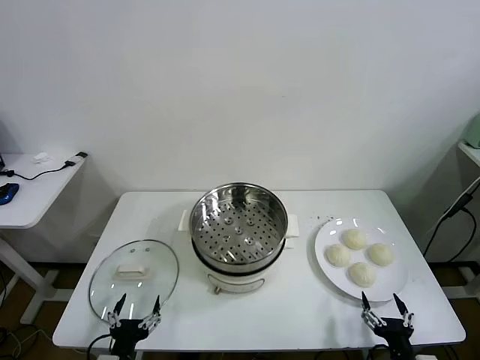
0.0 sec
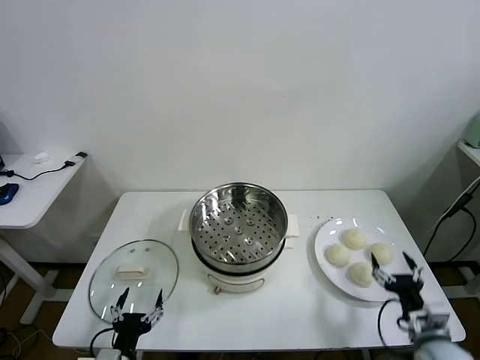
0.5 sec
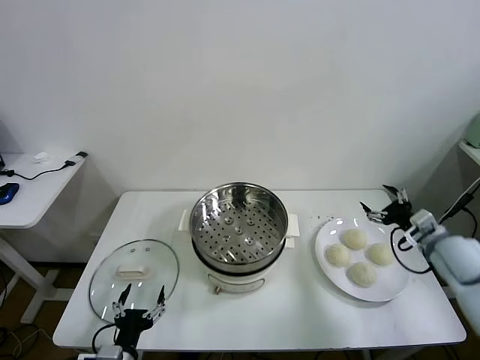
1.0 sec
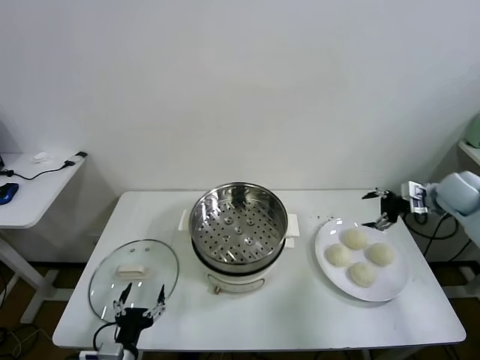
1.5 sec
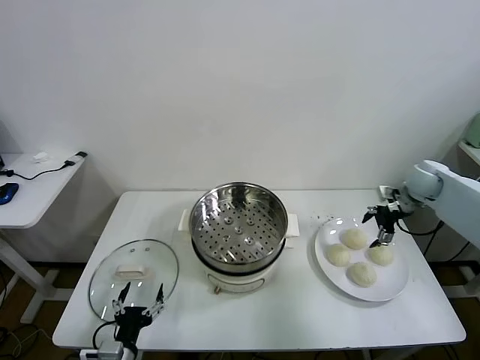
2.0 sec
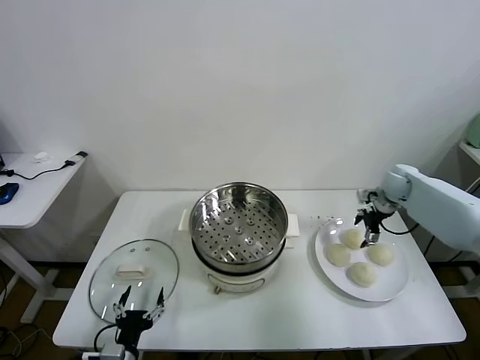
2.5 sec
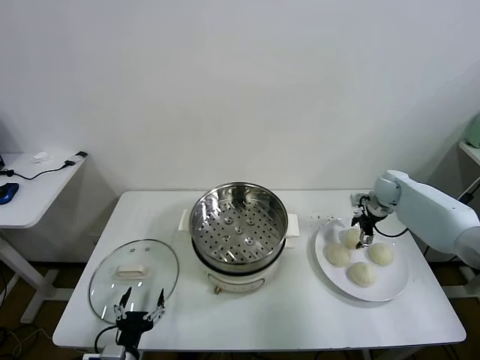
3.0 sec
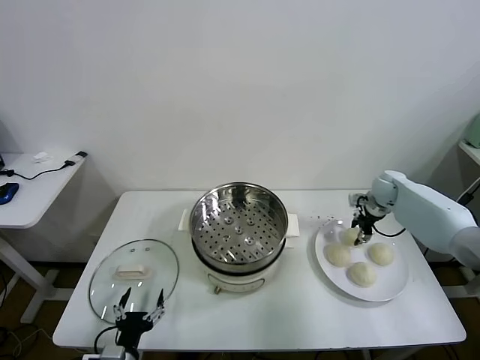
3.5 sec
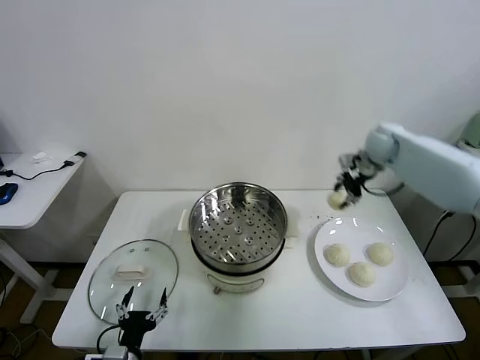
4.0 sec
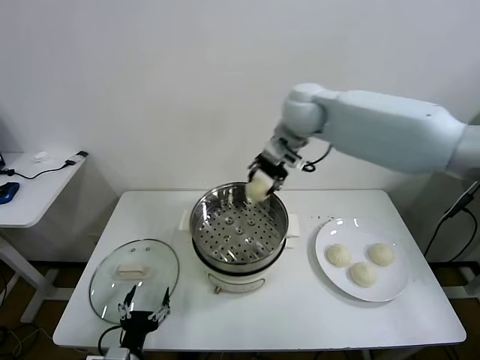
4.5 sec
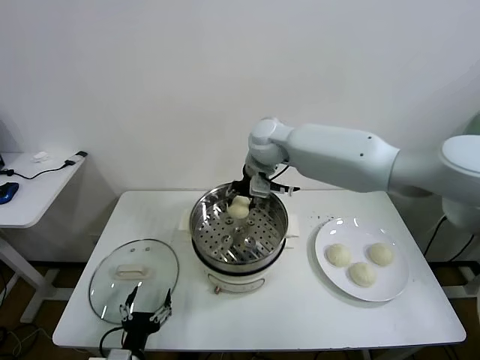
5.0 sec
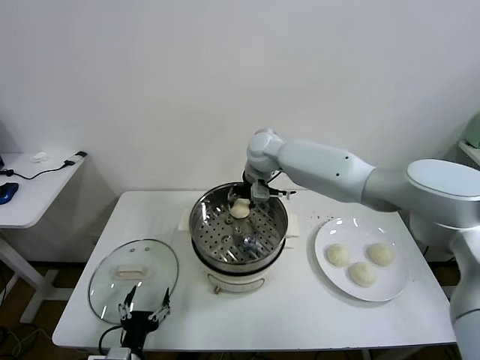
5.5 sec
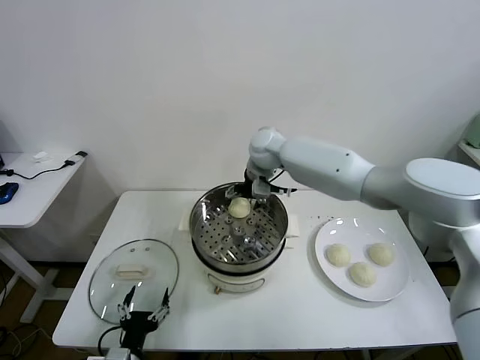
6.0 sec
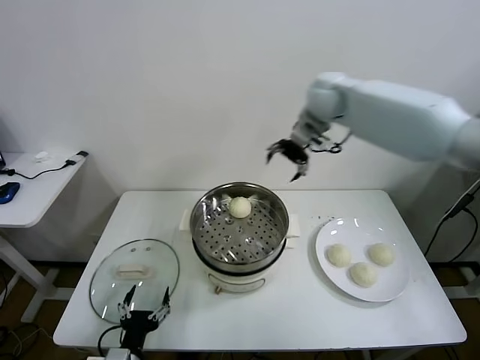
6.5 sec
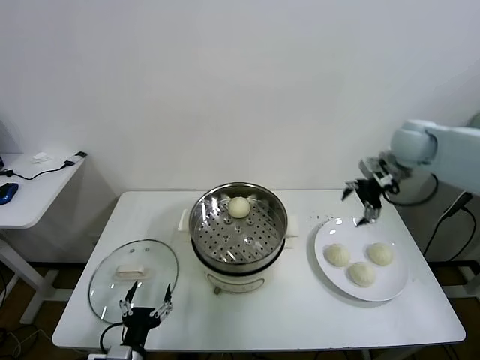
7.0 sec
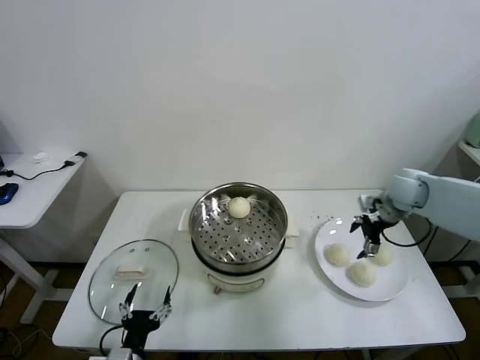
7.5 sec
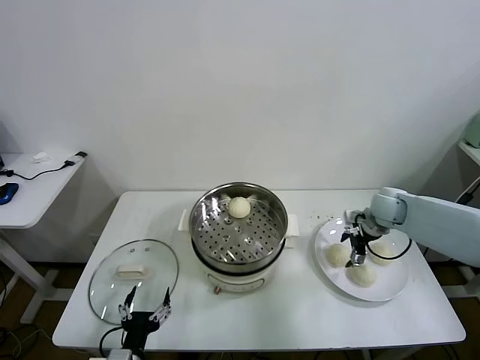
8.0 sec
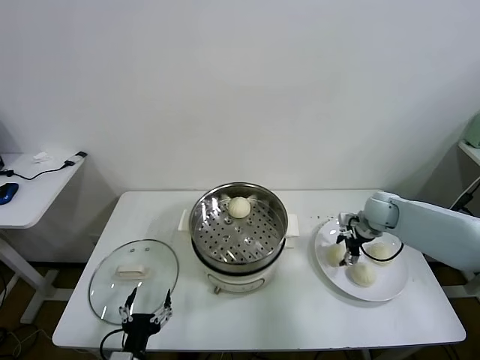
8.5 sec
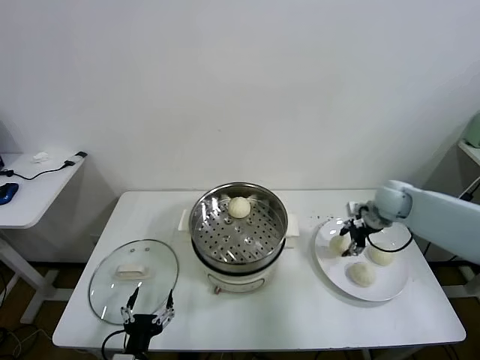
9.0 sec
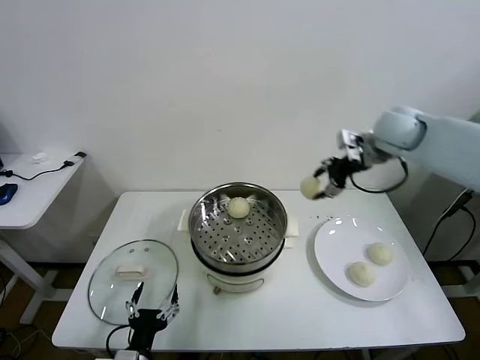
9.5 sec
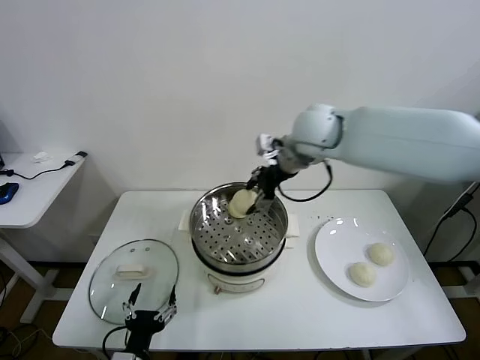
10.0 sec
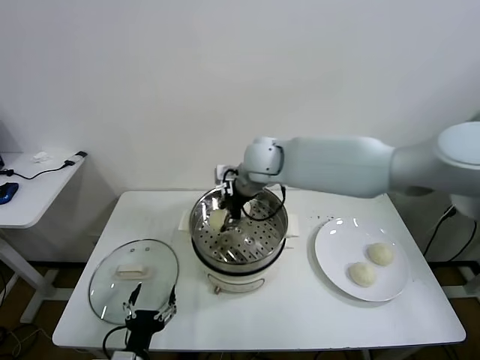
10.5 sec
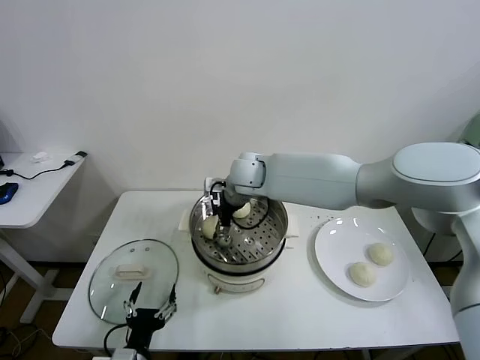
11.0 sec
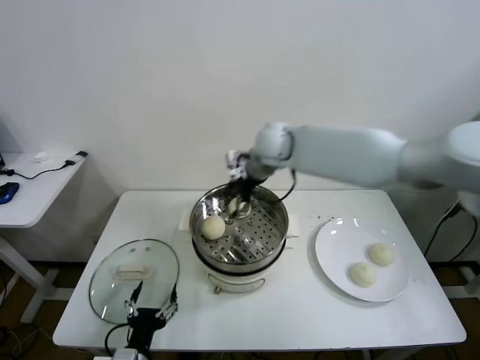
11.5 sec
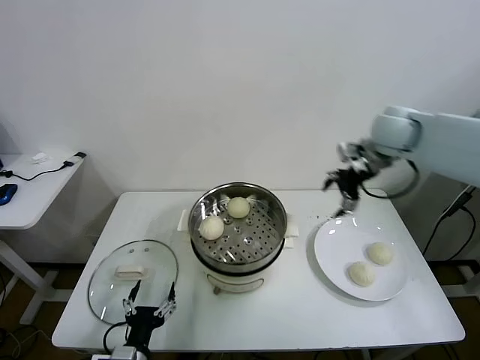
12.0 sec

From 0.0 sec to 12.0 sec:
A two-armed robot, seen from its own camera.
Task of the whole recording: take steamed baozi put them in steamer.
Step, from 0.0 sec to 3.0 sec: Grasp the baozi in the plate with right gripper.
Step, from 3.5 sec to 6.0 sec: Place the baozi on the steamer with right gripper.
Step, from 6.5 sec to 8.5 sec: Grasp the baozi in the plate with right gripper.
Step, from 9.0 sec to 11.0 sec: Place the baozi on the steamer with right gripper.
From 2.0 sec to 4.0 sec: The right gripper goes about 20 cm to the left and upward, and closes up.
From 4.0 sec to 6.0 sec: The right gripper moves to the left, approximately 25 cm, and opens up.
From 6.0 sec to 8.0 sec: The right gripper travels to the right and downward by approximately 35 cm.
From 8.0 sec to 10.0 sec: The right gripper shifts roughly 35 cm to the left and upward, and closes.
From 10.0 sec to 12.0 sec: The right gripper heads to the right, covering approximately 20 cm, and opens its fingers.

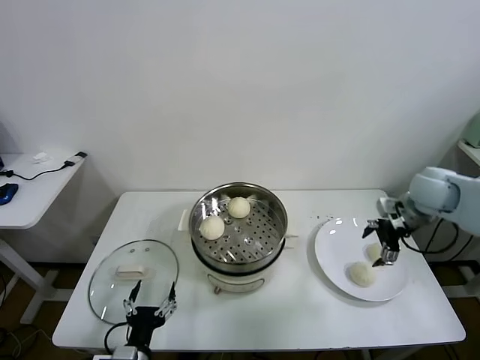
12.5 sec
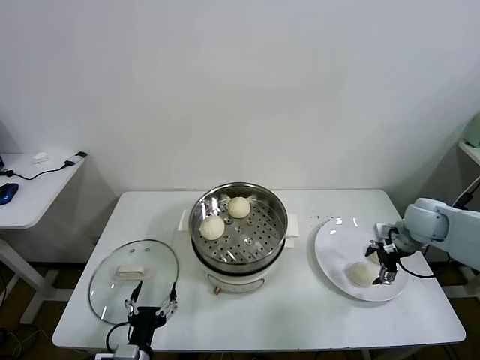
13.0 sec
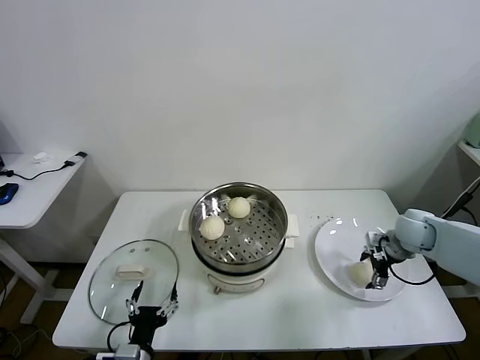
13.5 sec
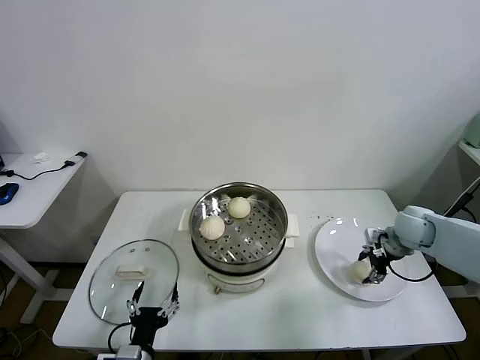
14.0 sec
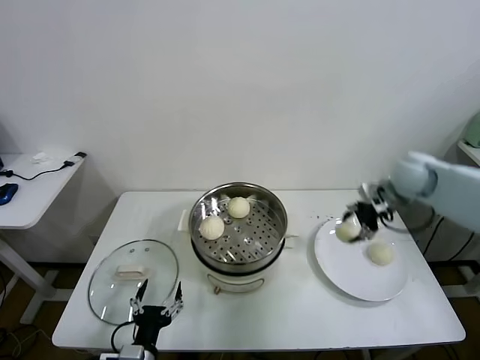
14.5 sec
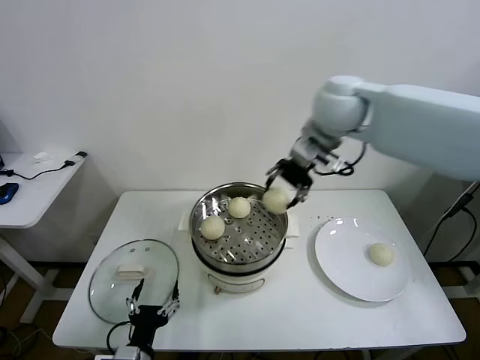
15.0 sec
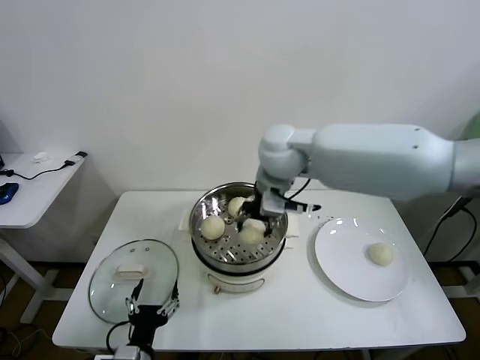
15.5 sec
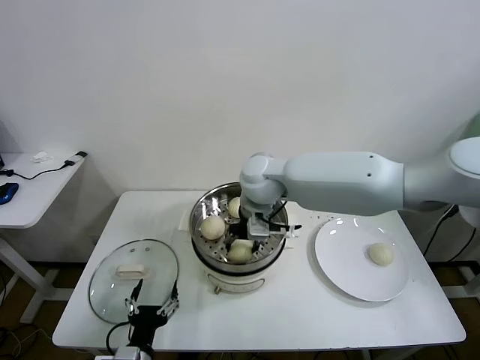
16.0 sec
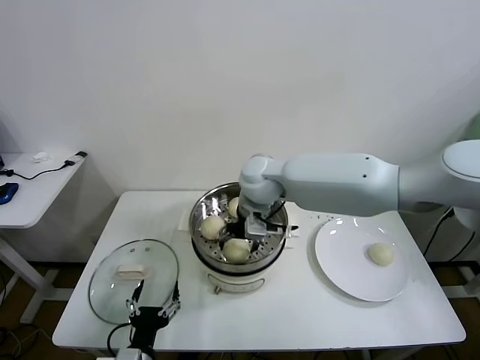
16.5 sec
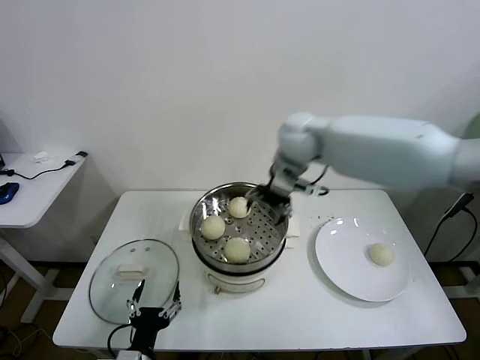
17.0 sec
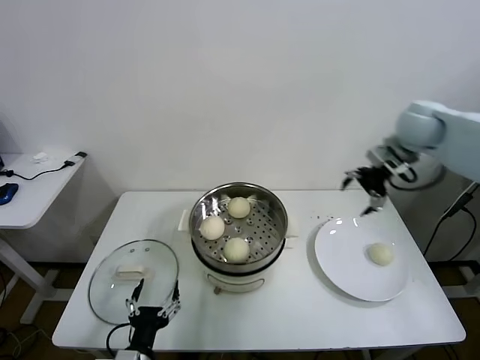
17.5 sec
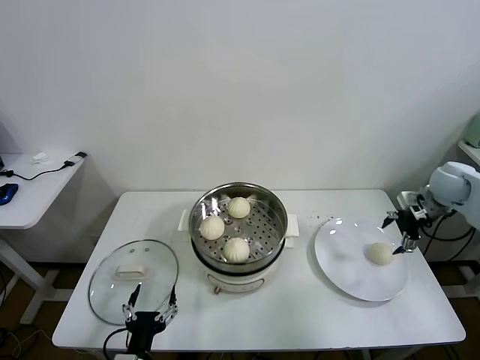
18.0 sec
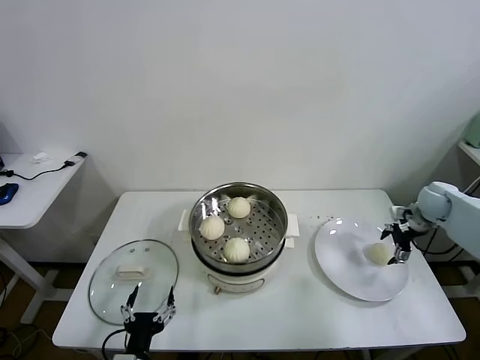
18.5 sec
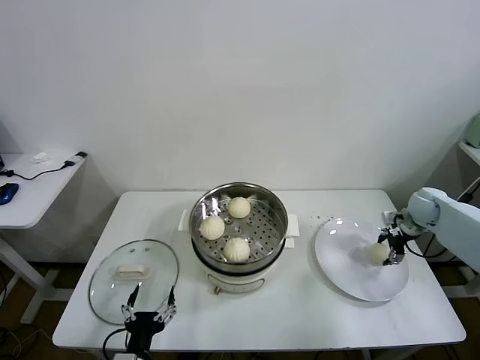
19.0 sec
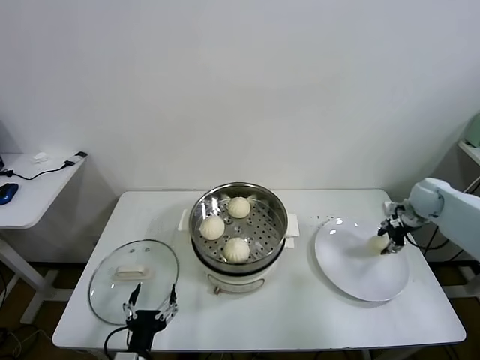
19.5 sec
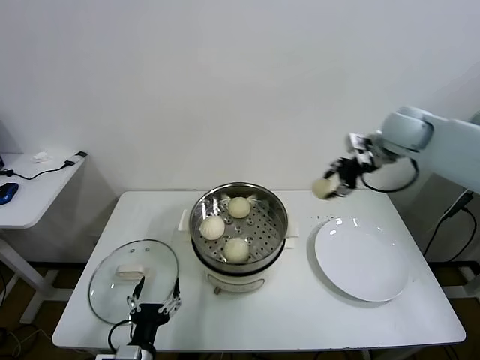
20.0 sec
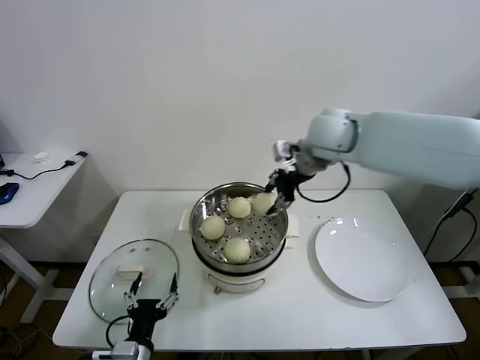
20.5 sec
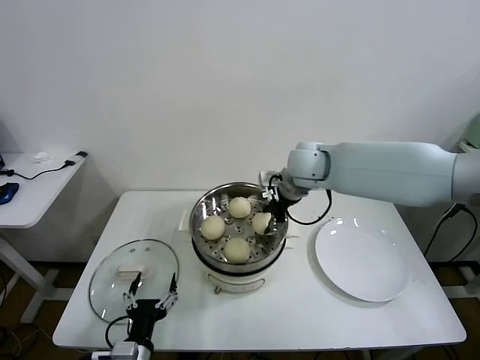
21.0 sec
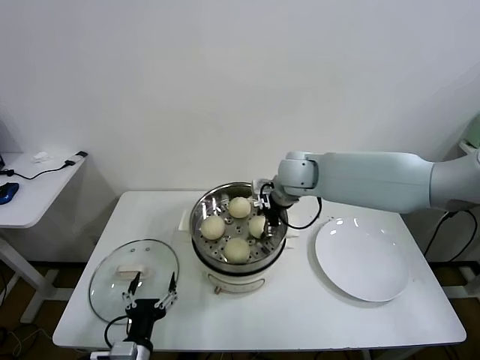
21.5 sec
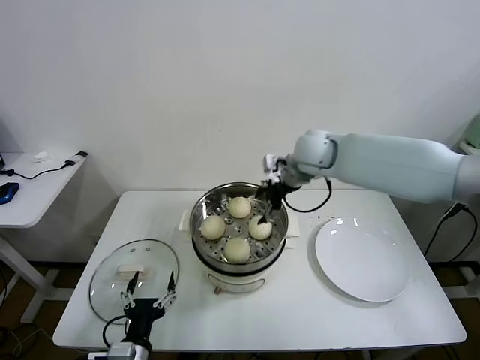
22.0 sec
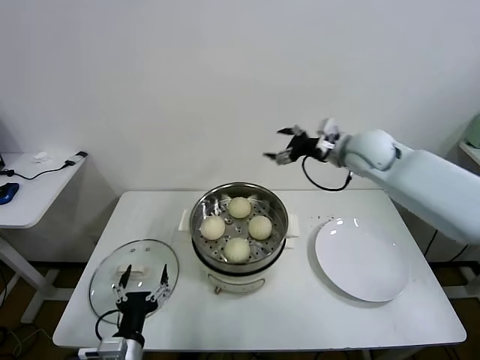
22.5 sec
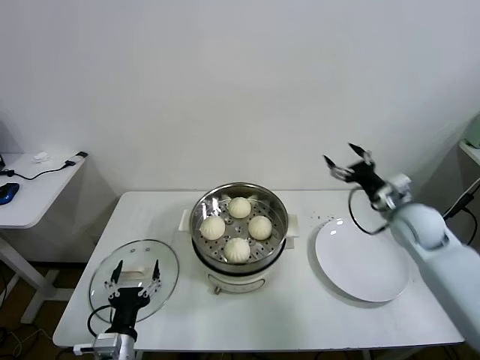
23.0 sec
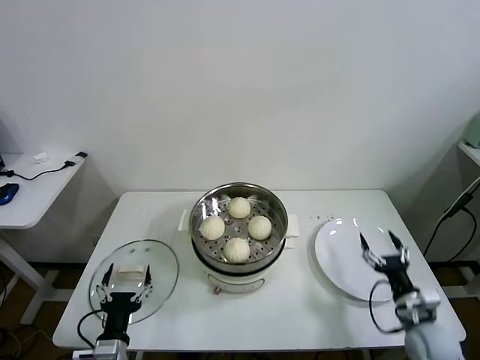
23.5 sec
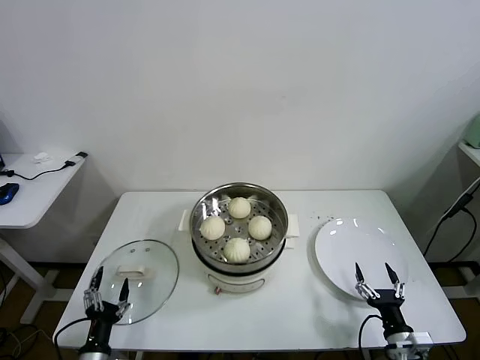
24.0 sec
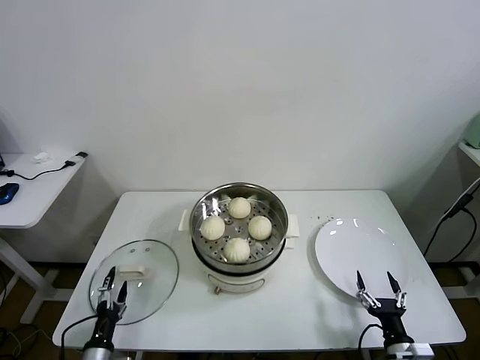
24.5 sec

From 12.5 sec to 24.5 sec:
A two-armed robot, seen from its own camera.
Task of the whole recording: take steamed baozi put them in steamer.
Step, from 14.0 sec to 16.5 sec: Place the baozi on the steamer with right gripper.
Step, from 17.0 sec to 19.0 sec: Grasp the baozi in the plate with right gripper.
Step, from 19.5 sec to 21.5 sec: Place the baozi on the steamer with right gripper.
From 12.5 sec to 14.5 sec: The right gripper moves approximately 10 cm downward and comes back, and closes its fingers.
From 14.5 sec to 16.5 sec: The right gripper travels to the left by about 35 cm, and opens.
From 16.5 sec to 18.5 sec: The right gripper moves to the right, approximately 50 cm.
From 18.5 sec to 20.5 sec: The right gripper moves to the left and upward, about 40 cm, and closes its fingers.
From 20.5 sec to 22.5 sec: The right gripper shifts approximately 10 cm to the right and downward, and opens up.
From 22.5 sec to 24.5 sec: The left gripper heads downward and to the left, covering approximately 15 cm. The right gripper is displaced backward and downward by about 50 cm.

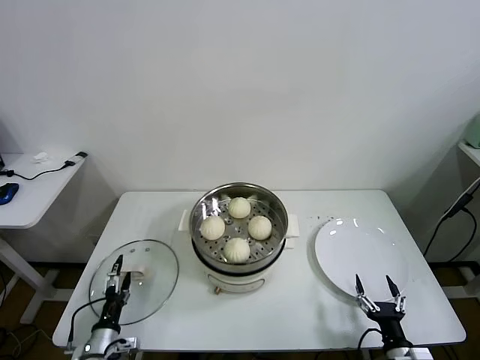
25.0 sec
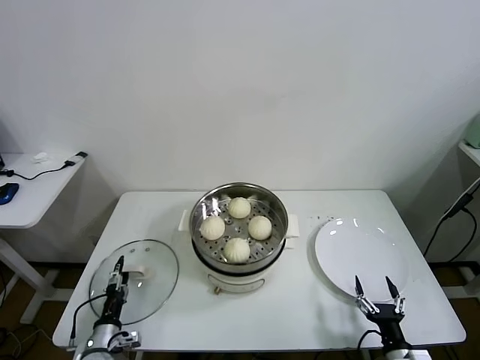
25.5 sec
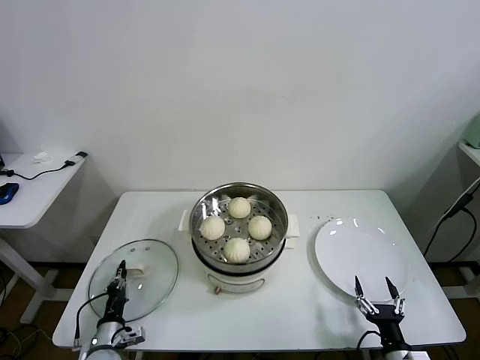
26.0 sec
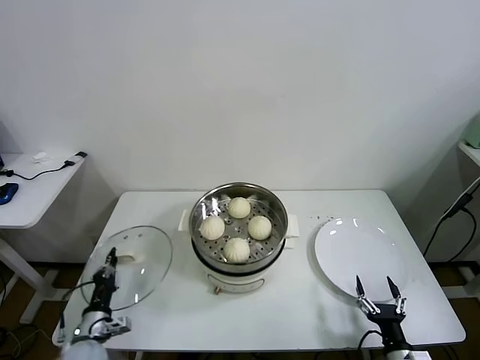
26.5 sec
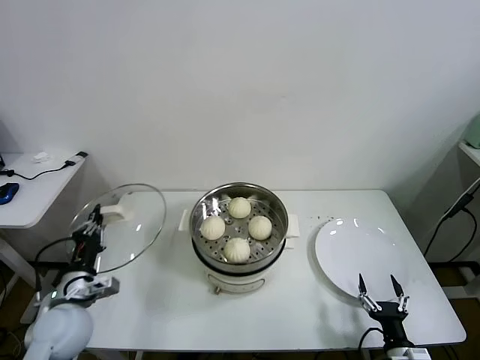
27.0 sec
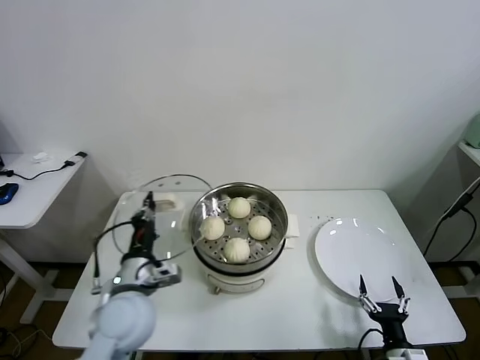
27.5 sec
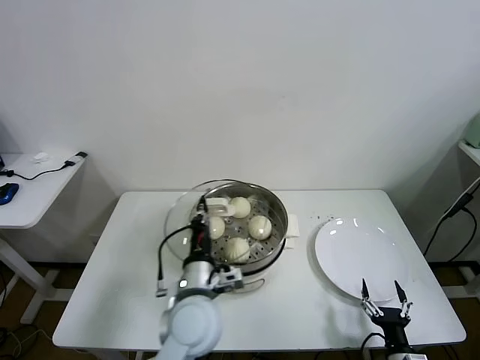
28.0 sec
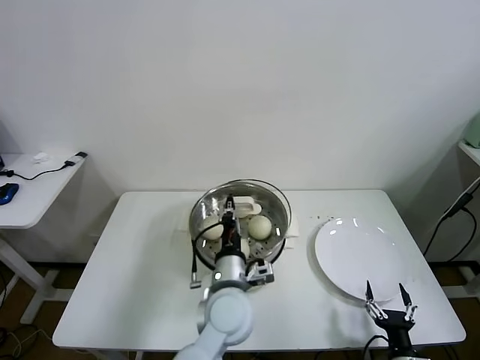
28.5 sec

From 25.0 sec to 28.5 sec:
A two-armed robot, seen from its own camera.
Task of the whole recording: take steamed baozi put them in steamer.
From 25.0 sec to 27.0 sec: The left gripper travels upward by about 15 cm, and closes its fingers.
From 27.0 sec to 28.5 sec: The left gripper shifts roughly 30 cm to the right.
